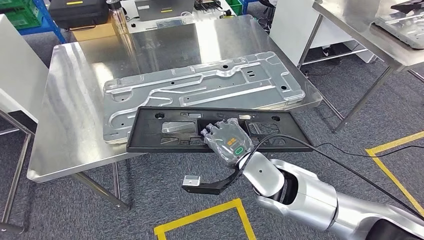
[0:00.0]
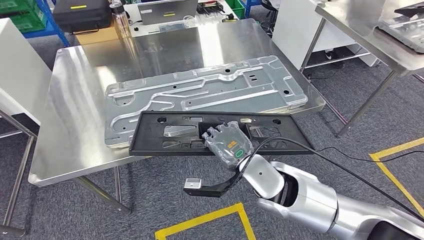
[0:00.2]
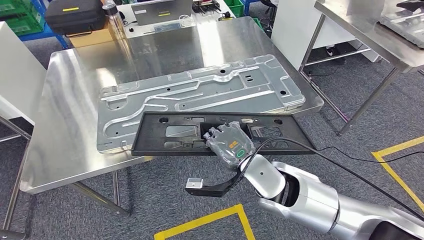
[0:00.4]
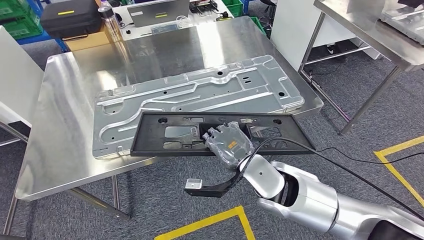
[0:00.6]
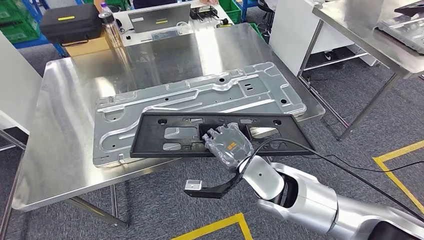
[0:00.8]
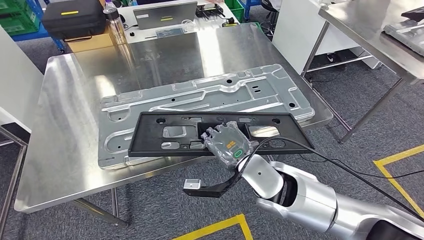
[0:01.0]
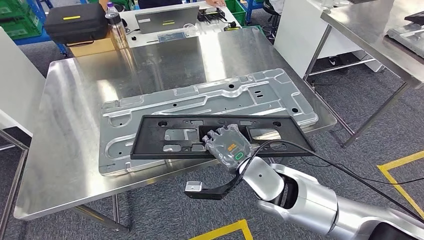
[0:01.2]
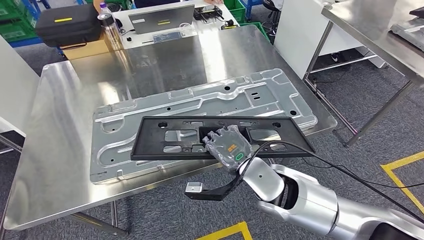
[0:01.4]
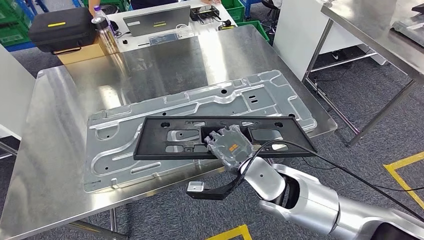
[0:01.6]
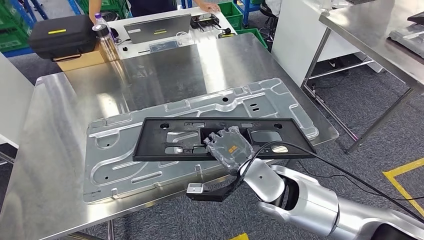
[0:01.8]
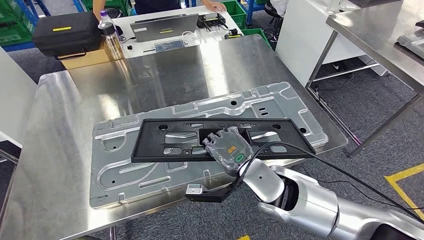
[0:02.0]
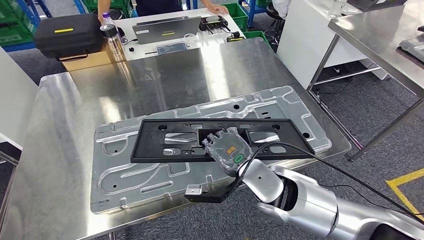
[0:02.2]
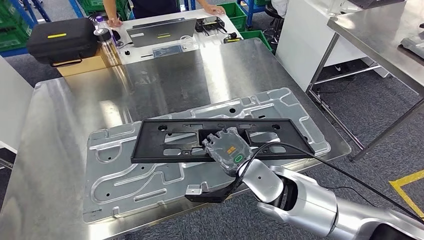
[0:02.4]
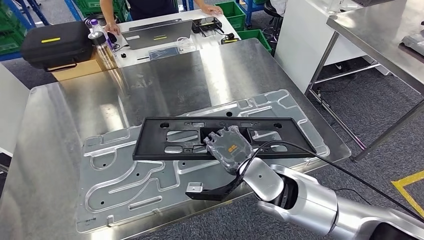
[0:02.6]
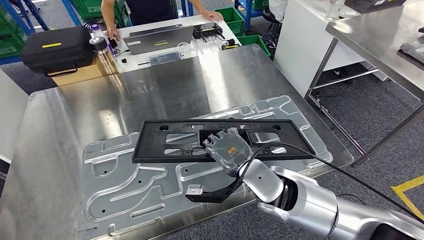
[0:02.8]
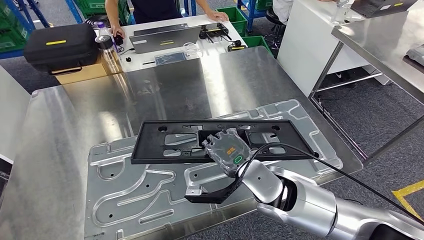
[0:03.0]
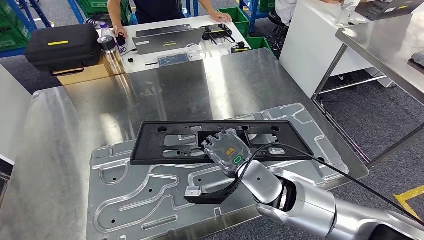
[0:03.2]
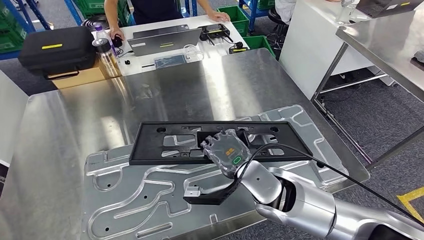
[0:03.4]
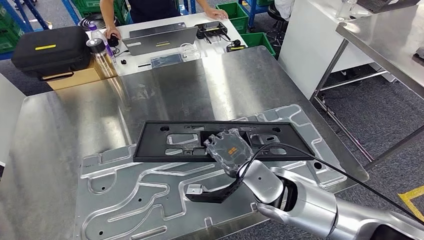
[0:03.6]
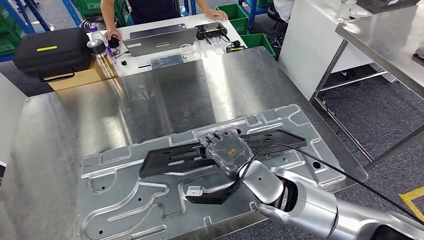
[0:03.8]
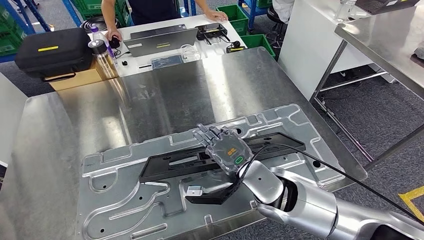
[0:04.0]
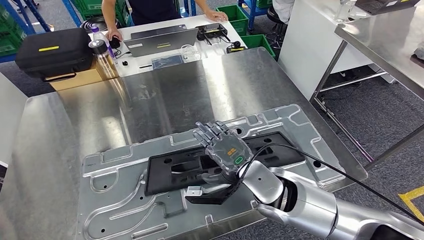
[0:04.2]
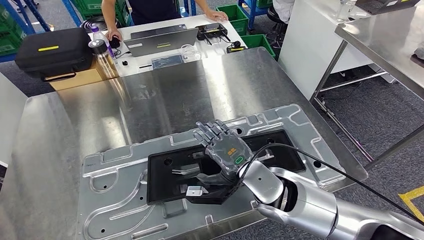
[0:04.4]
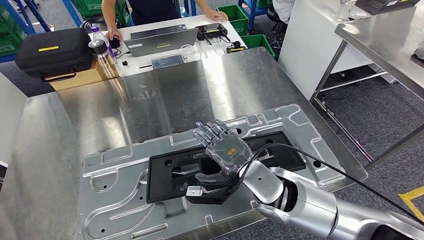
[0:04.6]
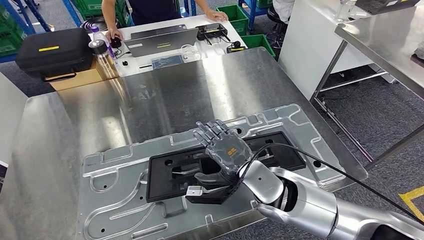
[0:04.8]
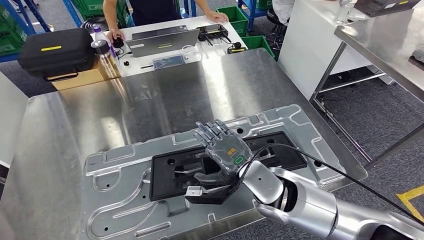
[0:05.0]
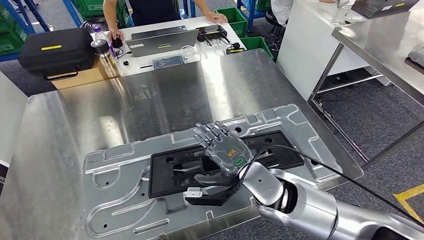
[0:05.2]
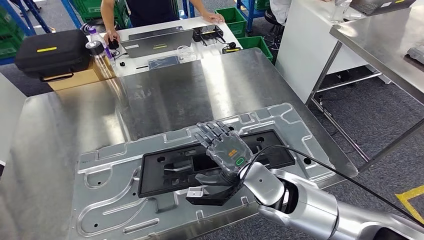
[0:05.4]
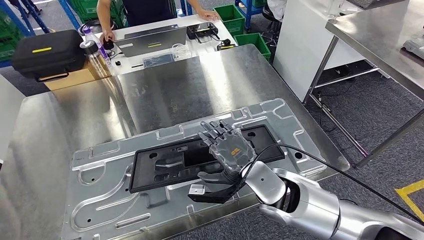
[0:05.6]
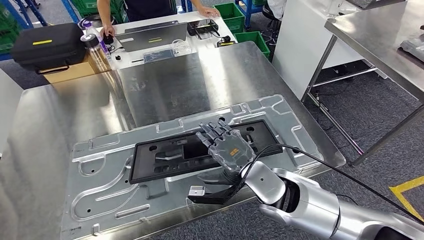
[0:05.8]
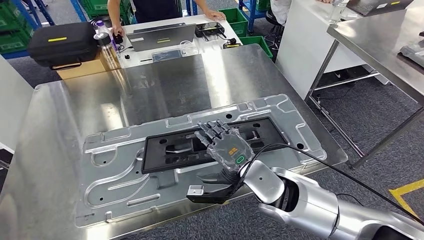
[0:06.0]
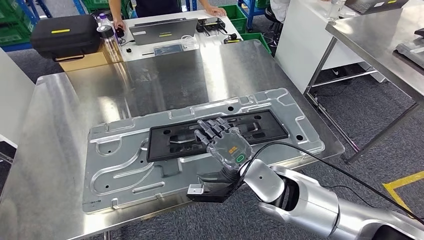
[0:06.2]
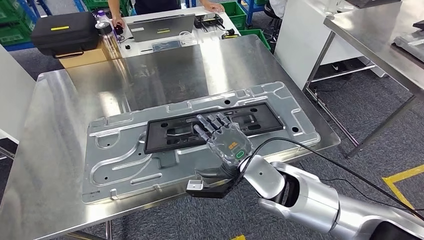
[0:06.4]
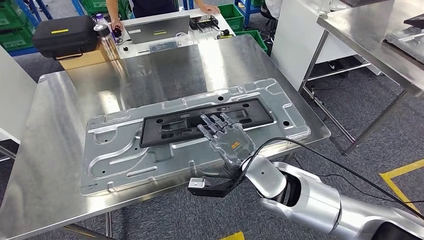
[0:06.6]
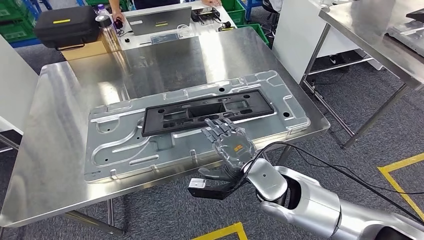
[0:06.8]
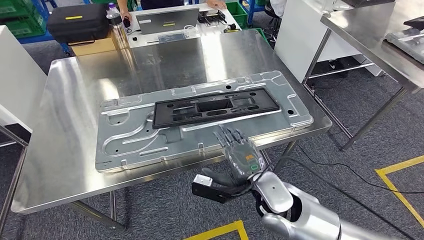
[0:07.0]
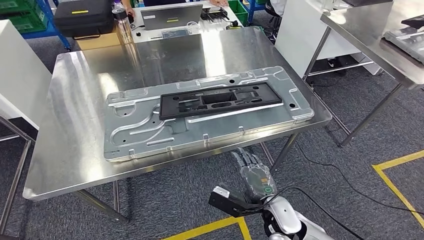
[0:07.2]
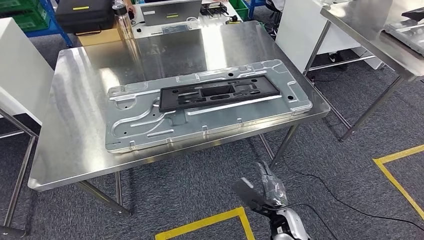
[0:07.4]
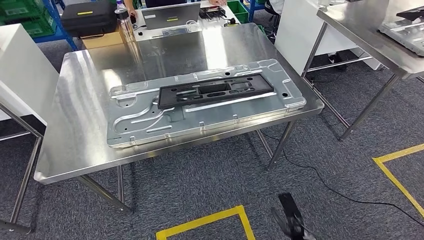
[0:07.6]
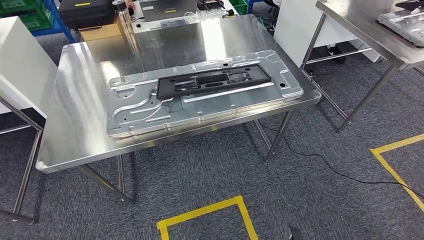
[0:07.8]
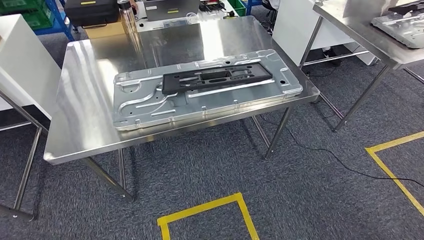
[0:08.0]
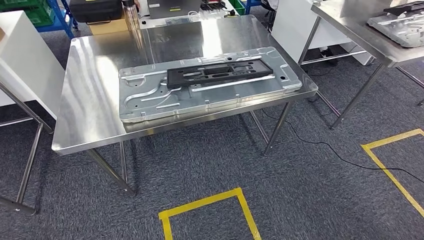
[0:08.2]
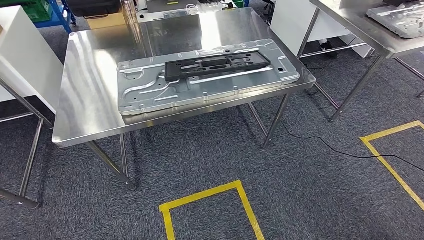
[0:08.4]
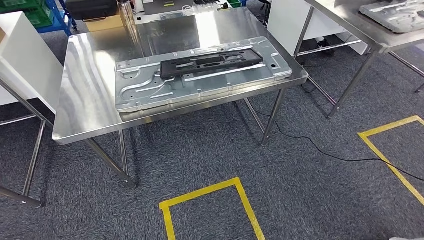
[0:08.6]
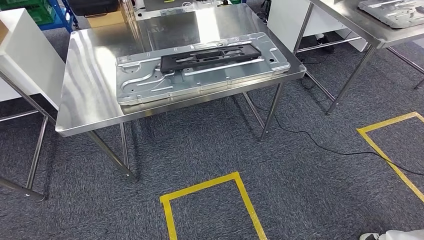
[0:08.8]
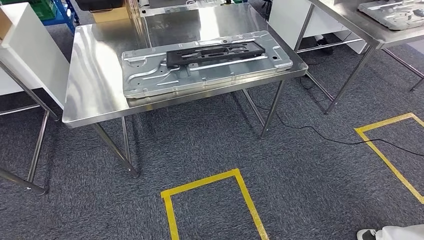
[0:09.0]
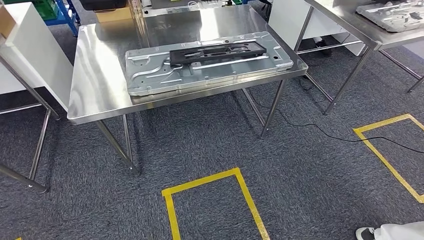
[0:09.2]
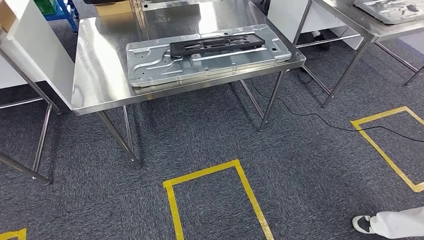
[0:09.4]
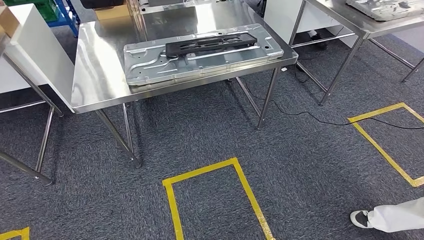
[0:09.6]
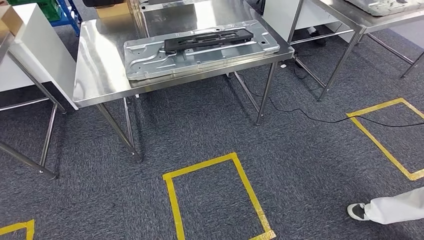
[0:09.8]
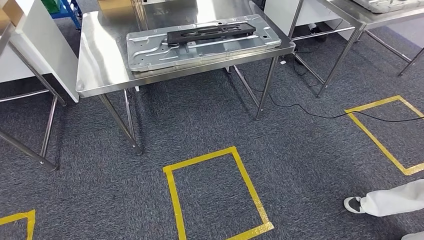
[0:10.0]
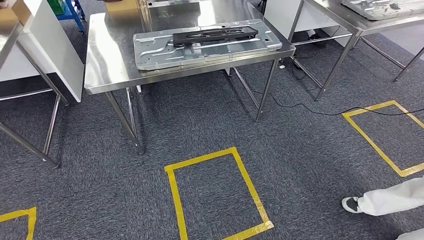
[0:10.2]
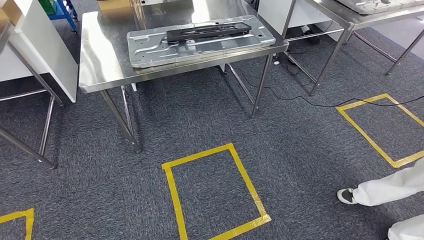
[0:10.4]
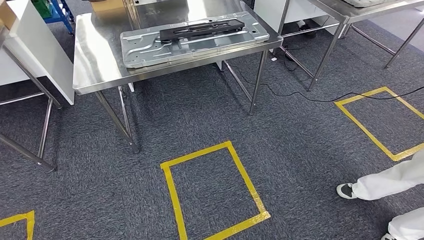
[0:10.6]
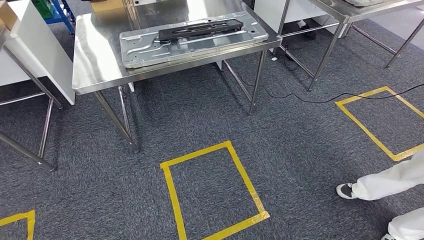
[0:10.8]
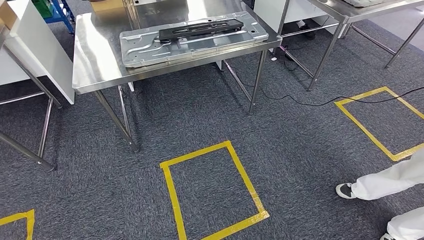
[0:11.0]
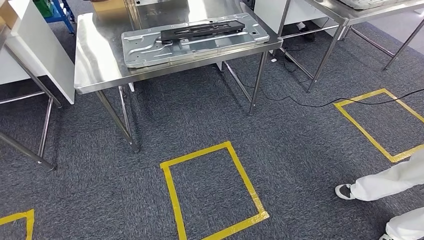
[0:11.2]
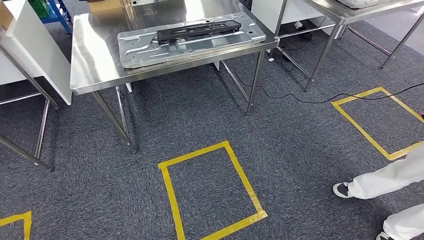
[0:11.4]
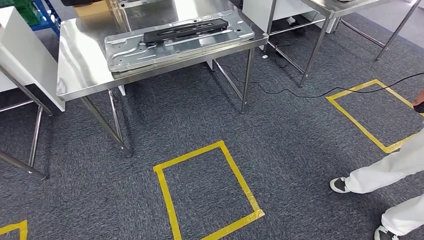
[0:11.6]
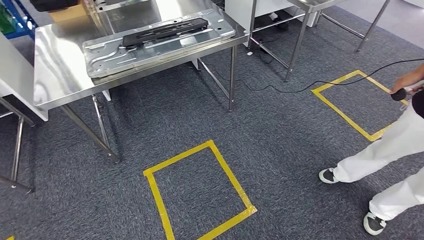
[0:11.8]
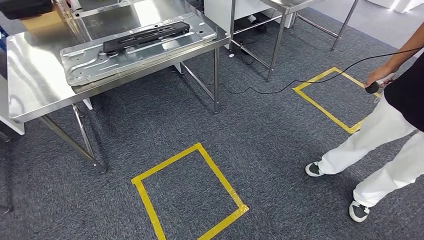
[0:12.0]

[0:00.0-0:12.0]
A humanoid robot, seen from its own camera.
Step, 0:00.0 to 0:05.6: Insert the large material into the corresponding hole on the workbench.

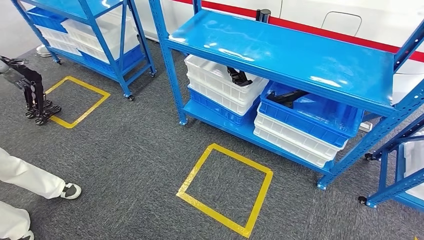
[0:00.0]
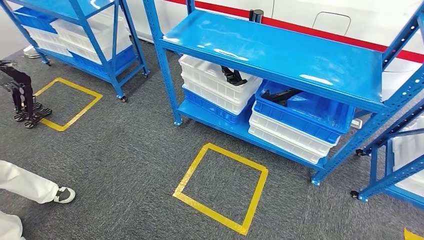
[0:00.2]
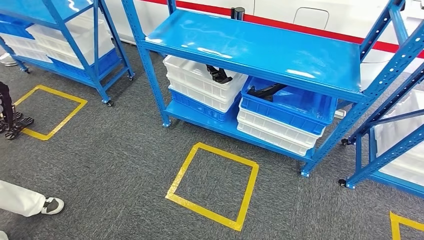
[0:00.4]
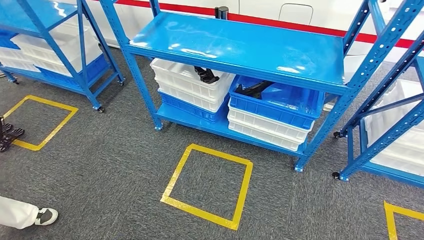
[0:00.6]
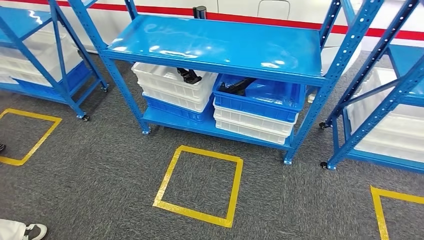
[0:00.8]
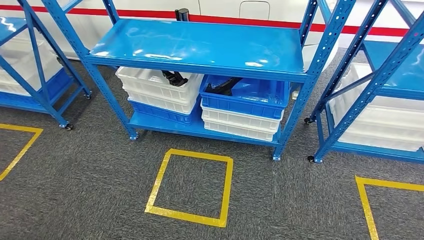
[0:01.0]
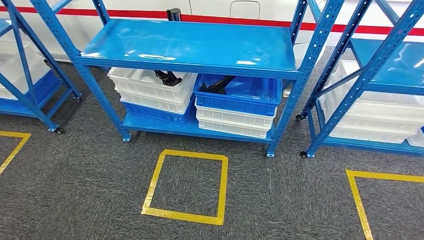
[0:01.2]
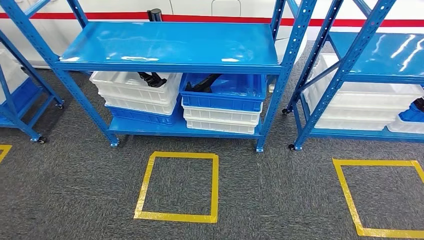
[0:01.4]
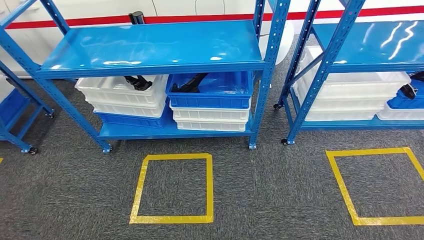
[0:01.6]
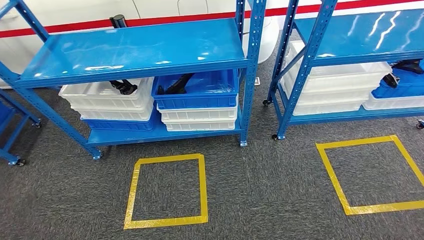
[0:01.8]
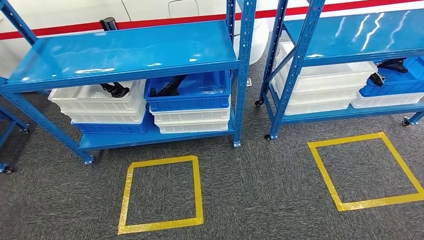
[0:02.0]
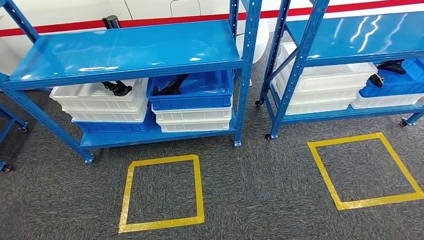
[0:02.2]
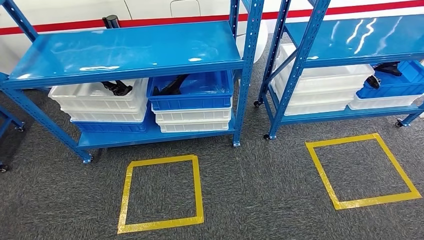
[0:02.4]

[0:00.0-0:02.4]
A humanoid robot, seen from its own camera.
Step, 0:00.0 to 0:02.4: Move to the initial position of the shelf.

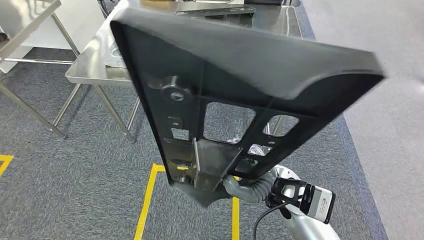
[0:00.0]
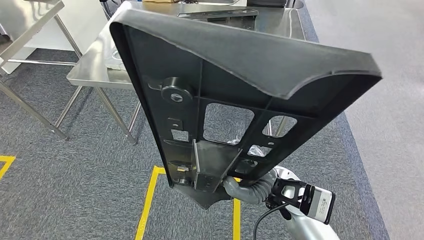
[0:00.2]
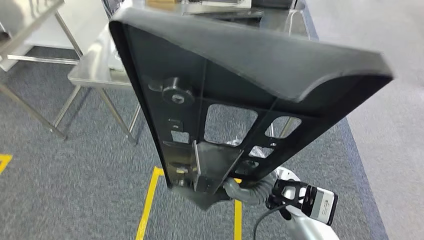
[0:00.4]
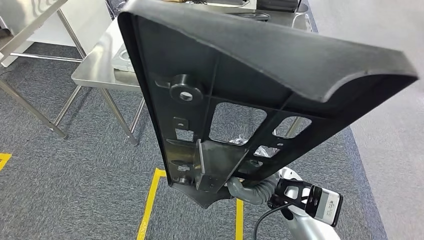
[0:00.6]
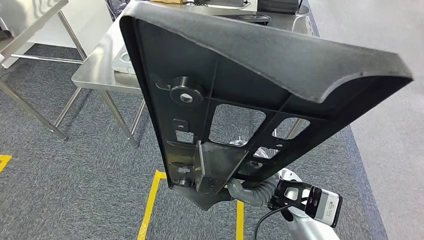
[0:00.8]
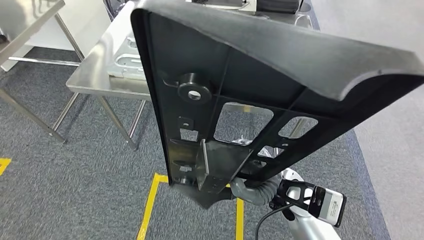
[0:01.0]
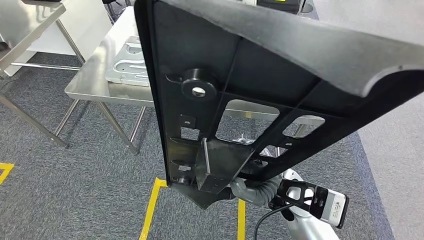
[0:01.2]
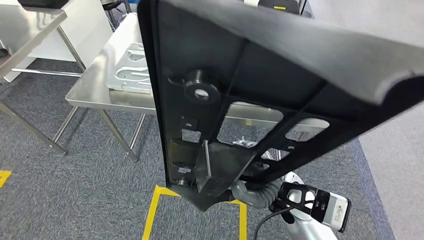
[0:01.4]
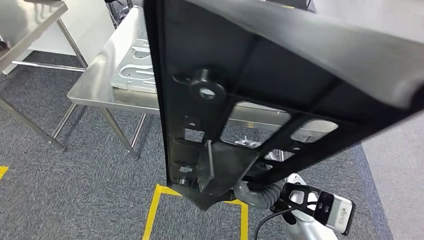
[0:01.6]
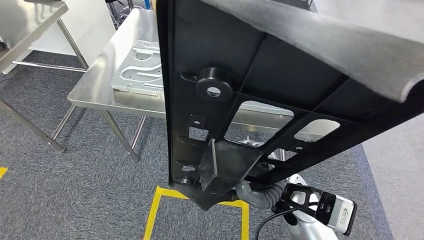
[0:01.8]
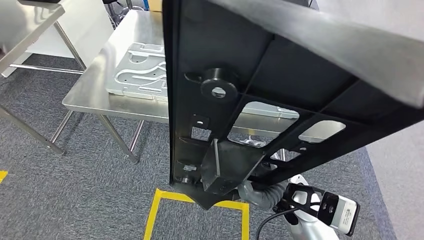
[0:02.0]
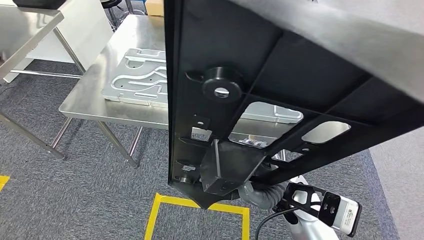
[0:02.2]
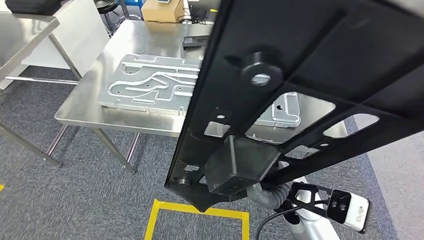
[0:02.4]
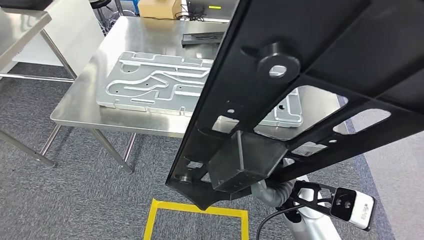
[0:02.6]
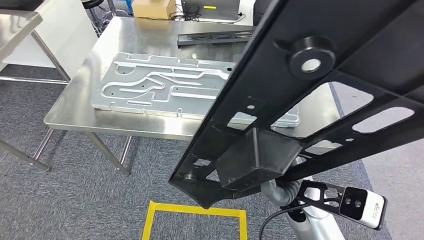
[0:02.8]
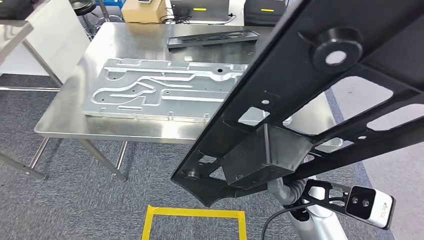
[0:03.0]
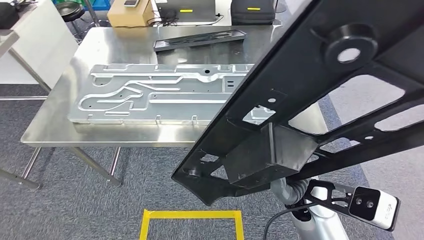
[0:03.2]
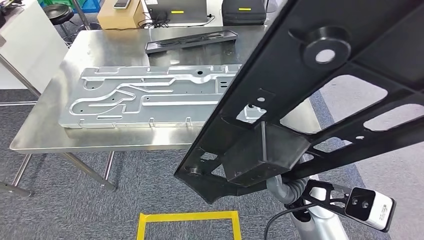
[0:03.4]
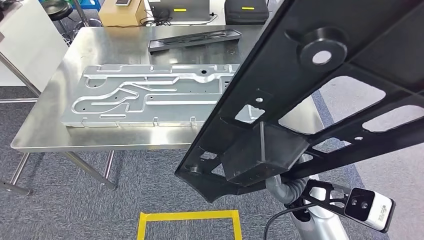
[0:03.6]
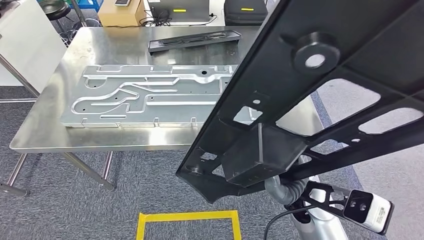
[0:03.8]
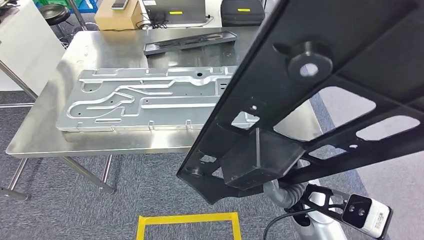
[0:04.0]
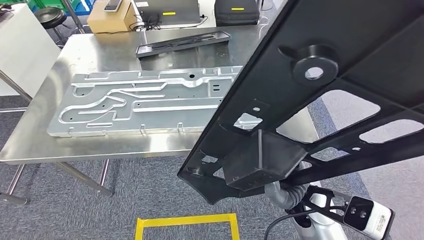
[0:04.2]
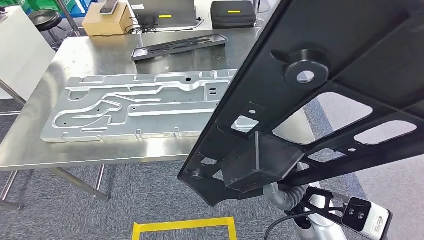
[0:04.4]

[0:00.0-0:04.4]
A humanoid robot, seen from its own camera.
Step, 0:00.0 to 0:02.8: Move the large material to the front of the workbench.
